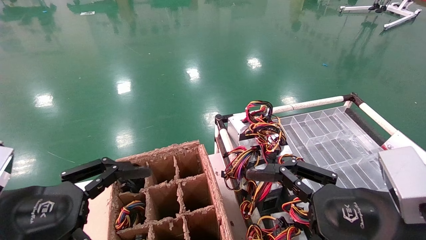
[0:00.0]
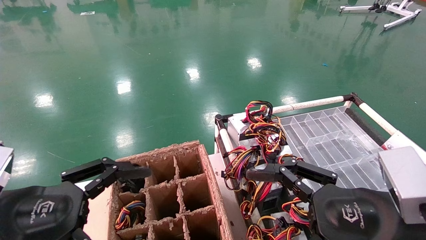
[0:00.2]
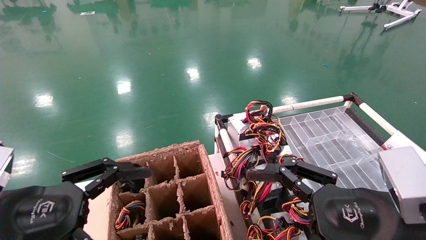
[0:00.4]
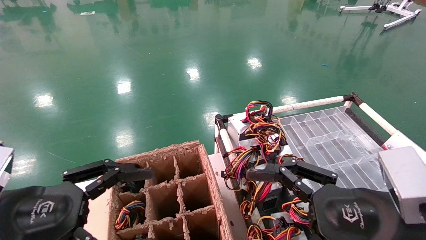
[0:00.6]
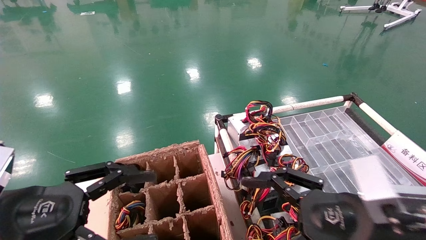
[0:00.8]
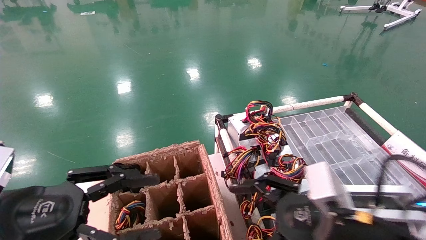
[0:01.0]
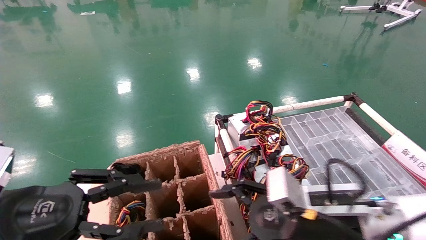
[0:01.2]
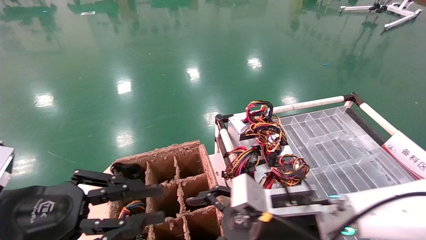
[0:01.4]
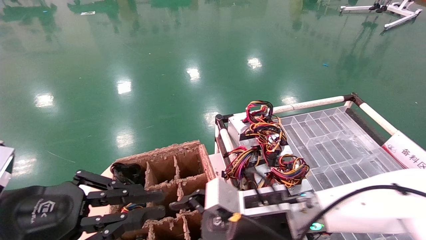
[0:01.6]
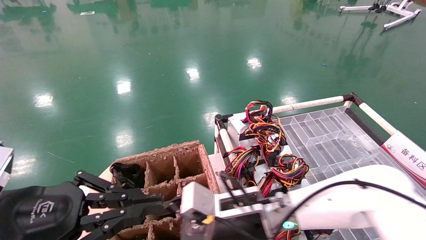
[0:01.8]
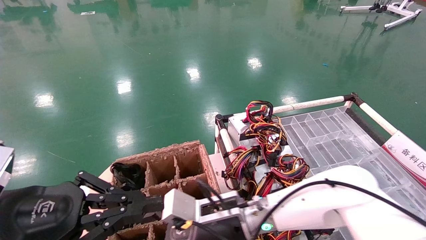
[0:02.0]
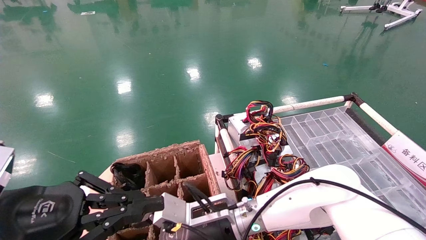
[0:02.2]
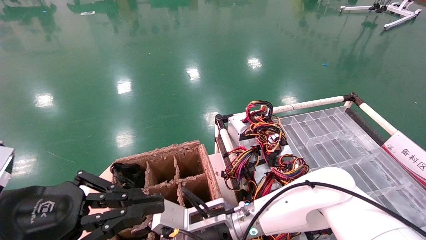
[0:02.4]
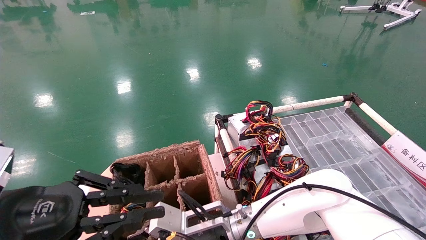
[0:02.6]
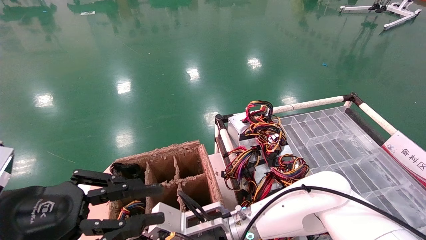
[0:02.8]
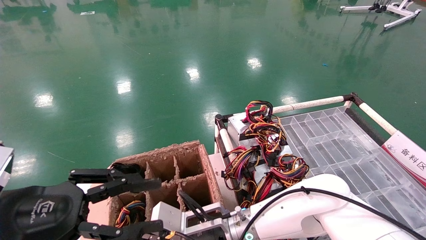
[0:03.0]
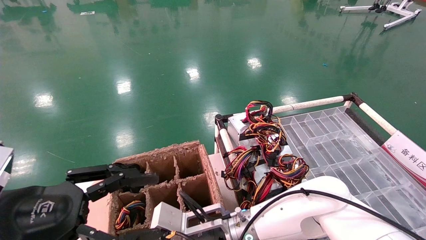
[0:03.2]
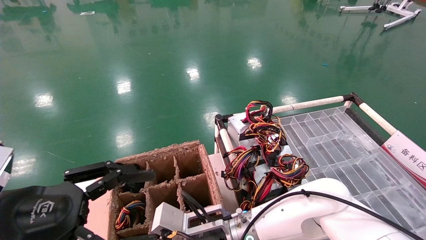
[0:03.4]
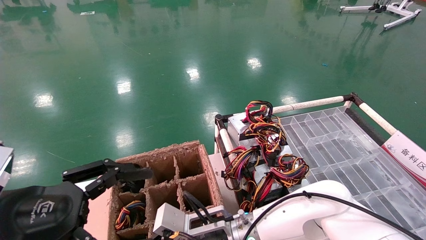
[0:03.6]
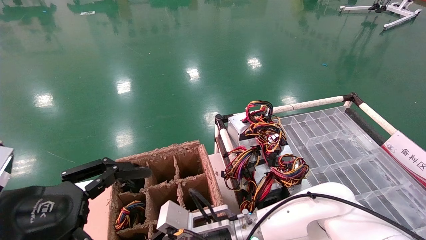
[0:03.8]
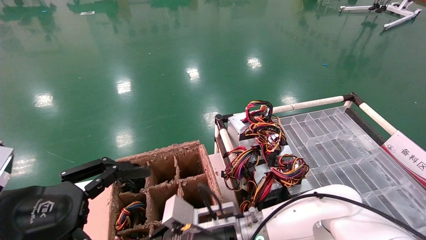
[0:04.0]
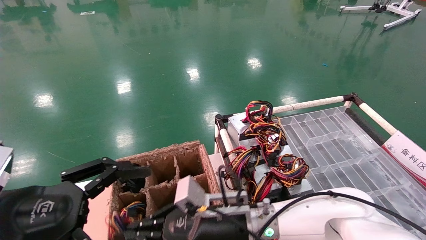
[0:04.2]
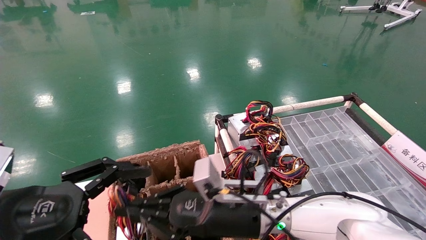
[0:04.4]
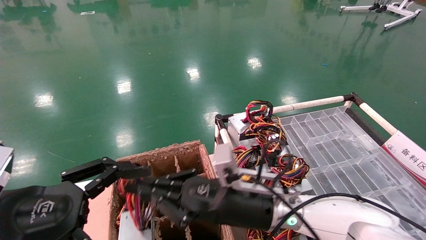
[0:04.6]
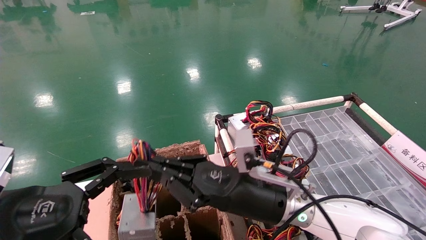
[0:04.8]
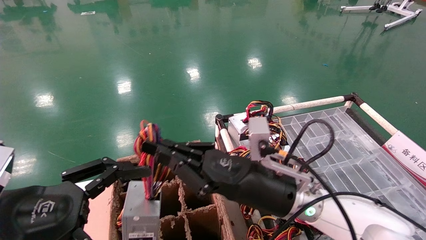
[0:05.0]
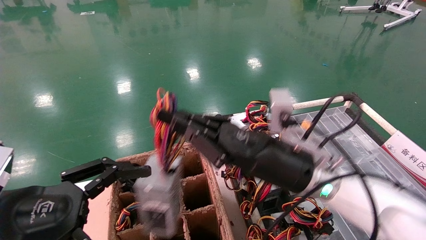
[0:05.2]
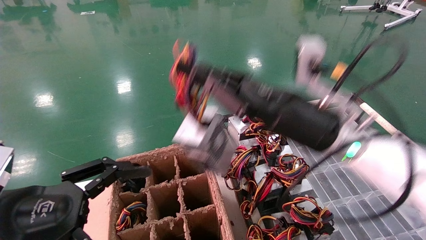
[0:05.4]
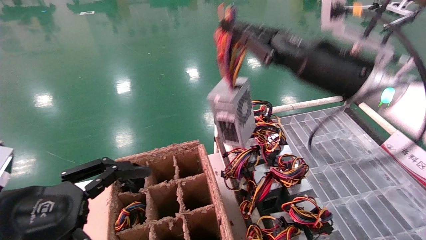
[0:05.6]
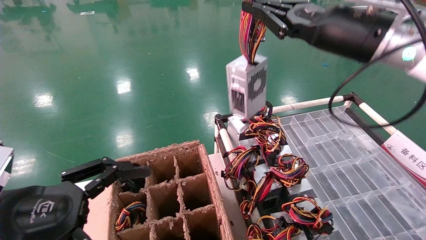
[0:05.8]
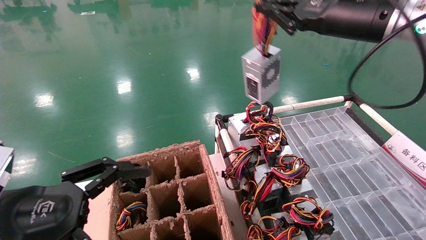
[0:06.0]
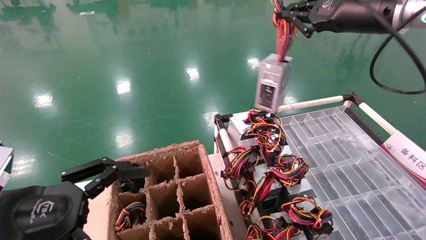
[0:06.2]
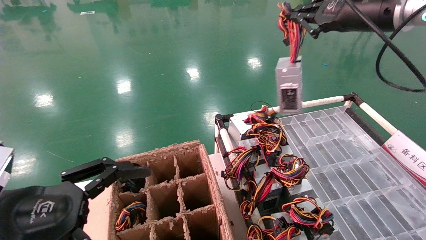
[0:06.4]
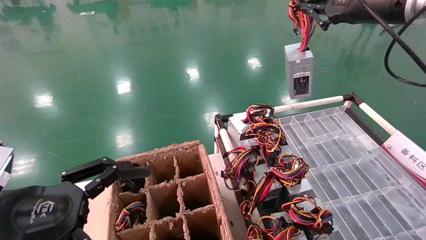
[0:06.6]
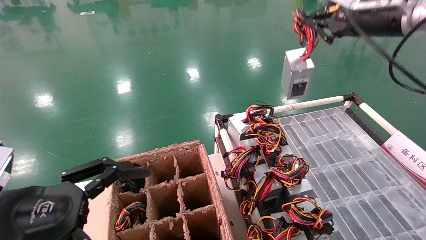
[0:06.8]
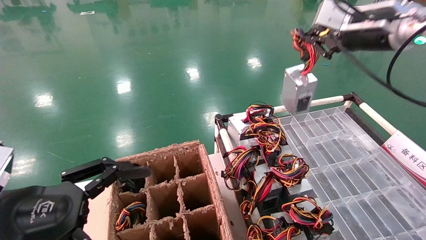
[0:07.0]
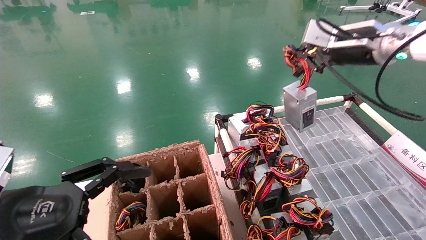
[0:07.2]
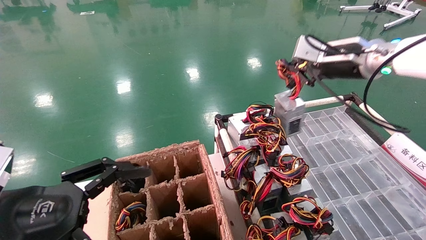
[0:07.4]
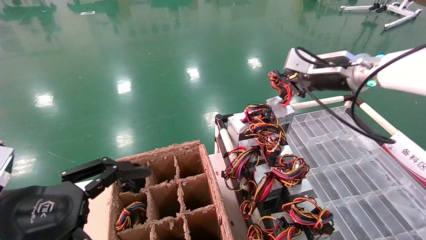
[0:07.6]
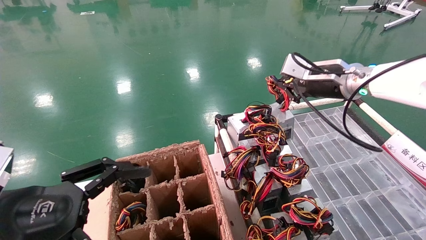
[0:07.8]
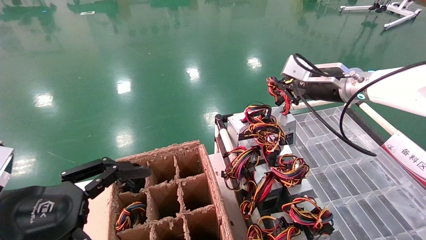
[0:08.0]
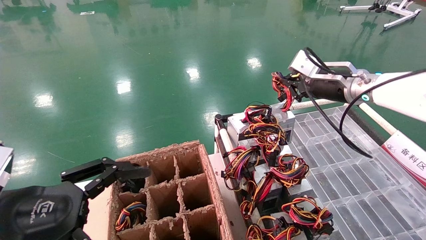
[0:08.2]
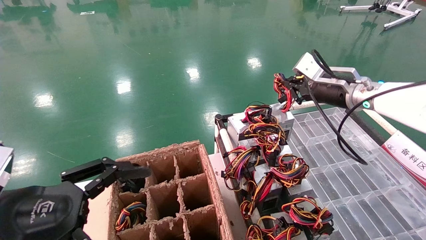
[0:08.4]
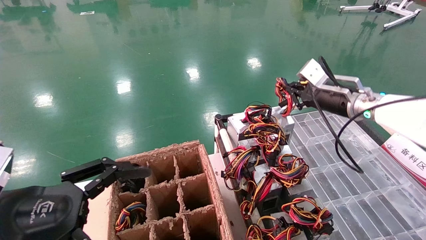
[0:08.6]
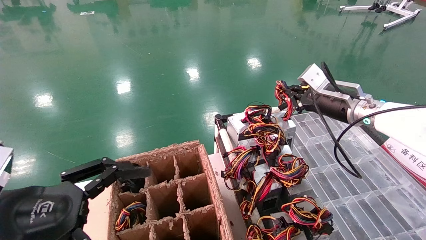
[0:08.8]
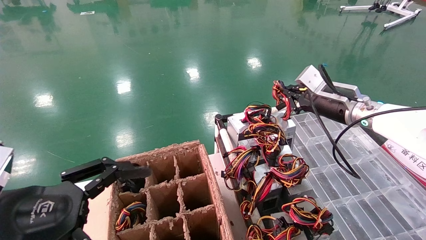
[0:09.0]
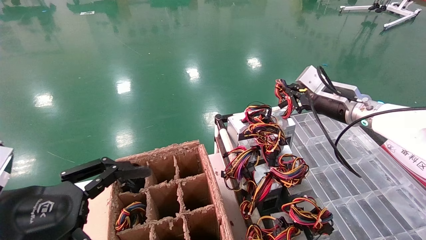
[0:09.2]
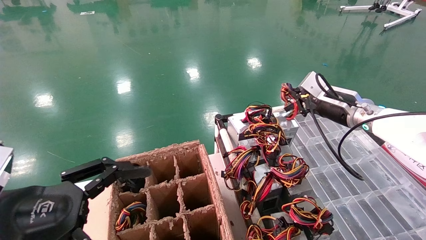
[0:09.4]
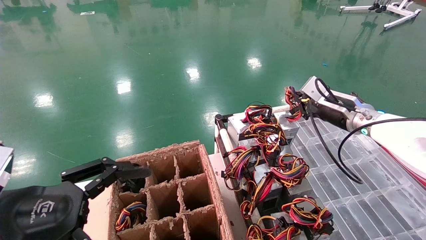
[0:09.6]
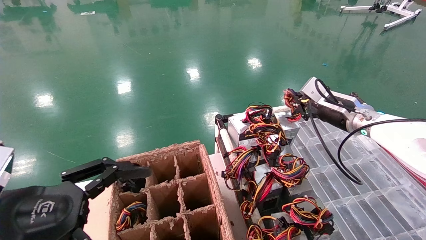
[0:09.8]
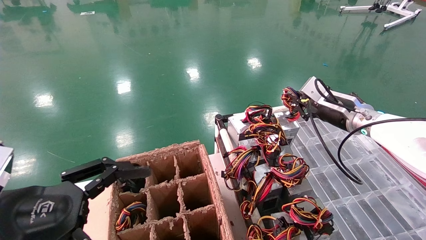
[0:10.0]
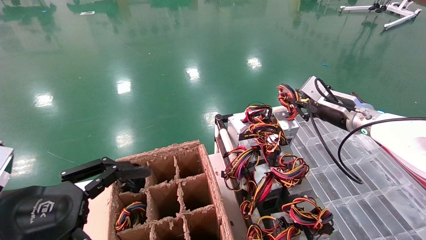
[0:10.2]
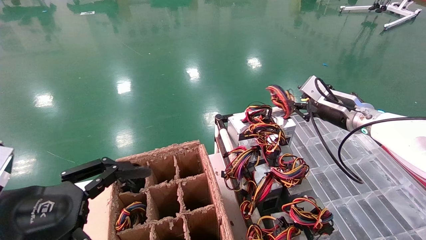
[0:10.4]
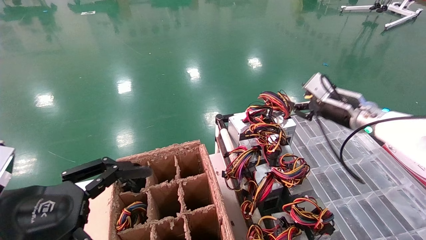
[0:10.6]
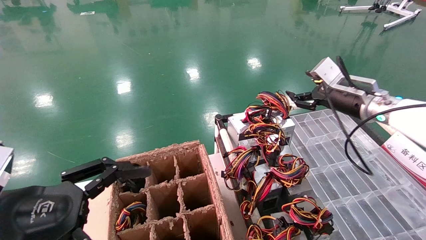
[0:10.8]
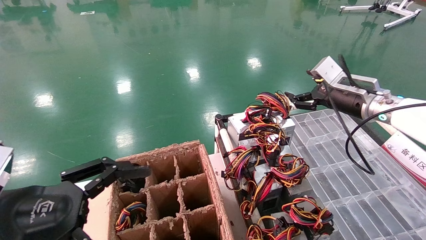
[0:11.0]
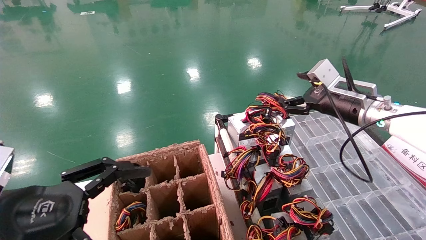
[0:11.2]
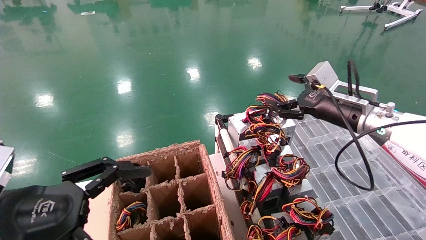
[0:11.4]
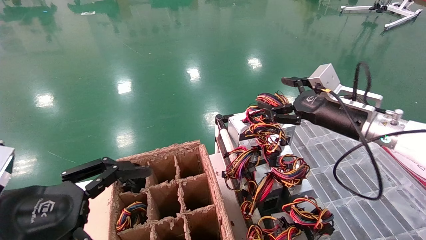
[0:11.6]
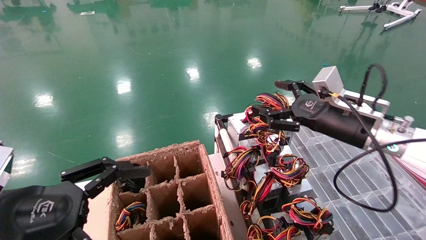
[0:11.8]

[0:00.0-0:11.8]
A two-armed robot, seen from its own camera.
Step, 0:01.0 to 0:03.6: Grab and lift the power supply from the large box.
Step, 0:03.8 to 0:10.0: Place the power supply on the operating table.
0:00.0 to 0:01.4: The left gripper closes its fingers; the right gripper goes approximately 15 cm forward, to the left and downward.
0:01.4 to 0:03.0: The right gripper is displaced to the left and downward by about 15 cm.
0:03.0 to 0:04.4: The left gripper opens its fingers; the right gripper shifts by roughly 5 cm, and closes its fingers.
0:04.4 to 0:06.0: The right gripper shifts some 35 cm upward and to the right.
0:06.0 to 0:07.4: The right gripper heads forward, covering roughly 5 cm.
0:07.4 to 0:08.8: The right gripper heads downward, covering some 10 cm.
0:08.8 to 0:10.4: The grippers make only small movements.
0:10.4 to 0:11.8: The right gripper goes about 10 cm backward, and opens.
